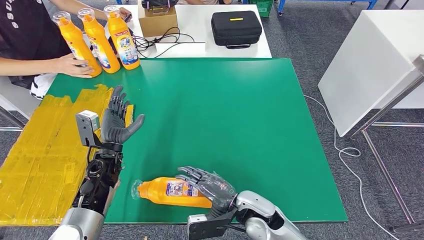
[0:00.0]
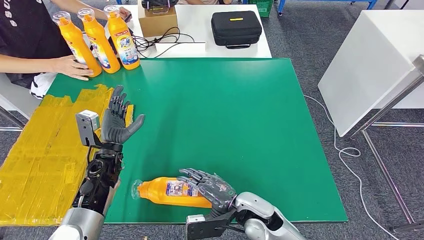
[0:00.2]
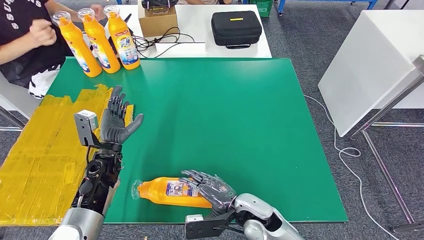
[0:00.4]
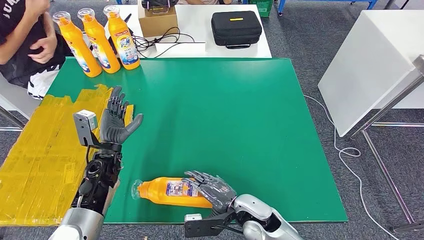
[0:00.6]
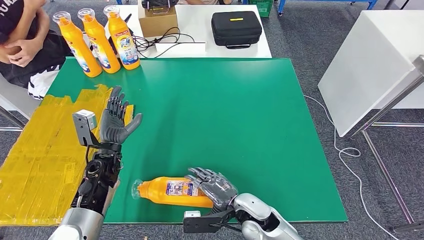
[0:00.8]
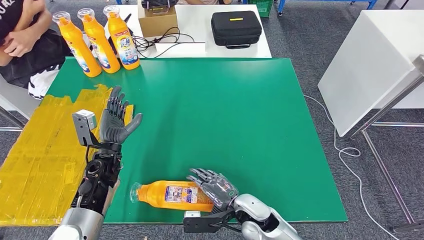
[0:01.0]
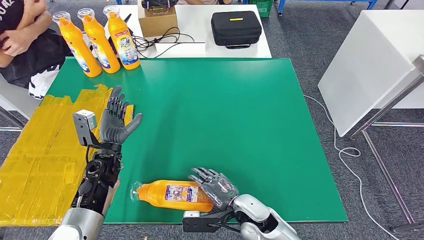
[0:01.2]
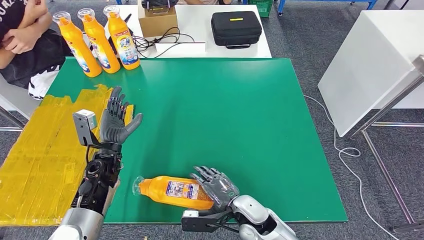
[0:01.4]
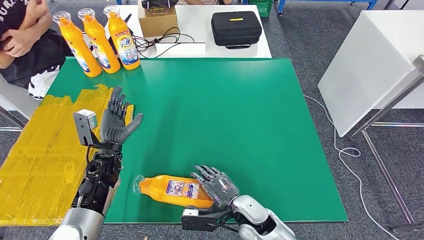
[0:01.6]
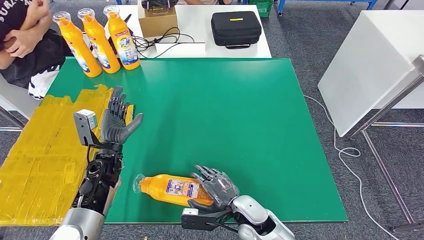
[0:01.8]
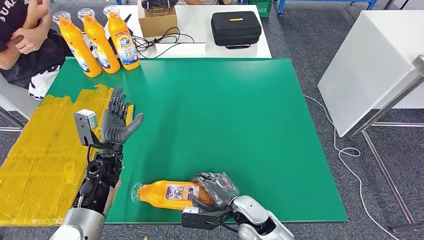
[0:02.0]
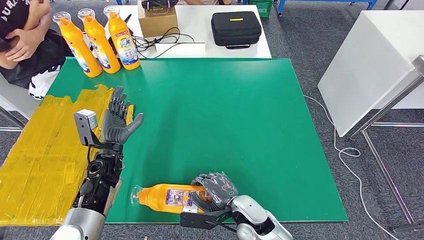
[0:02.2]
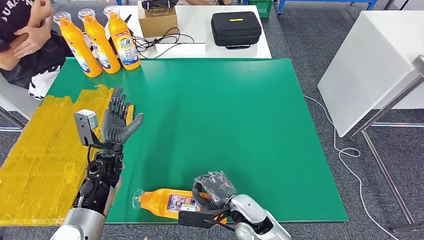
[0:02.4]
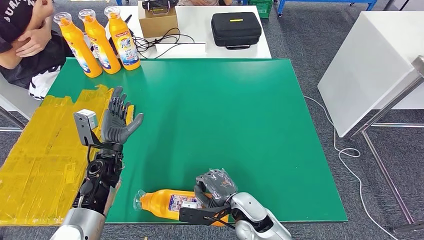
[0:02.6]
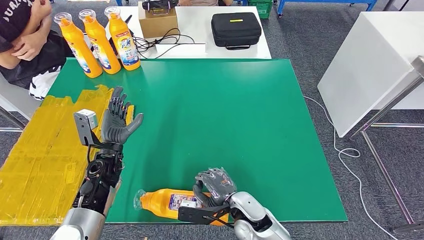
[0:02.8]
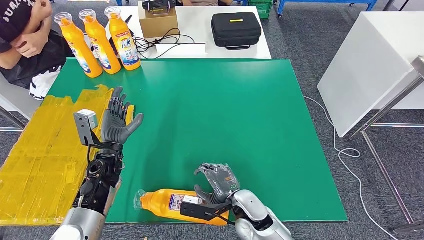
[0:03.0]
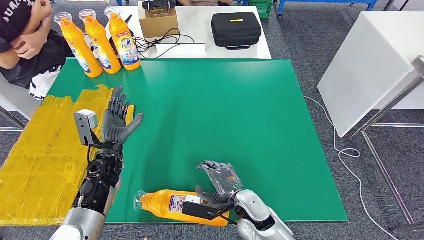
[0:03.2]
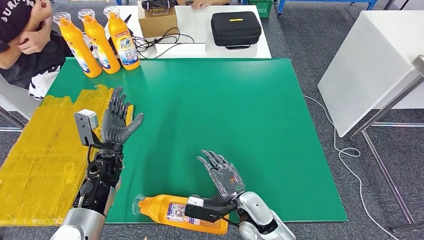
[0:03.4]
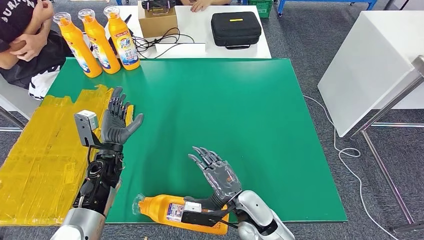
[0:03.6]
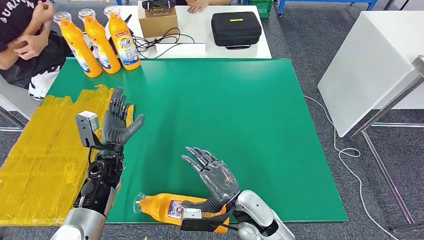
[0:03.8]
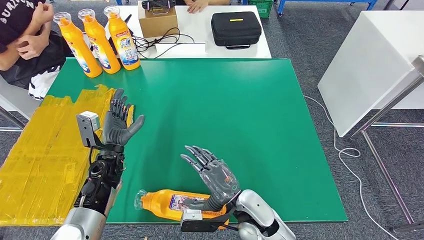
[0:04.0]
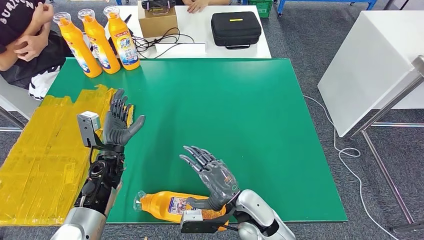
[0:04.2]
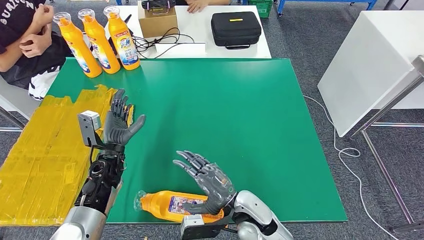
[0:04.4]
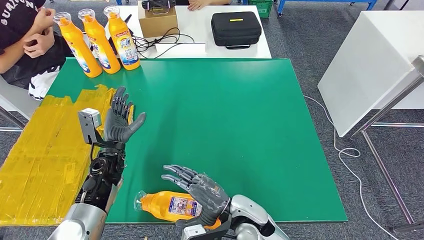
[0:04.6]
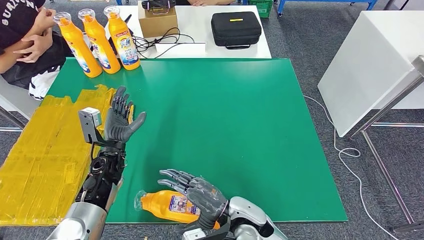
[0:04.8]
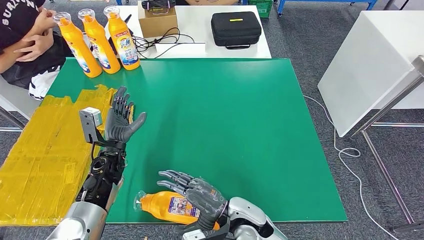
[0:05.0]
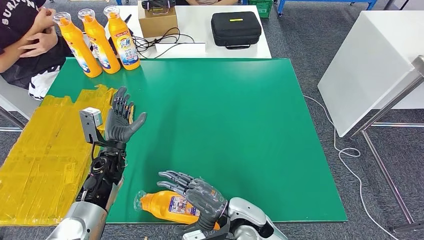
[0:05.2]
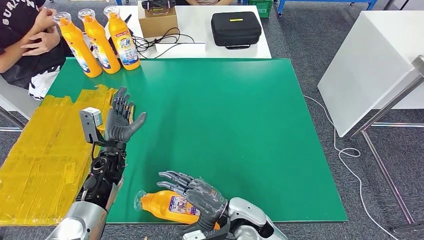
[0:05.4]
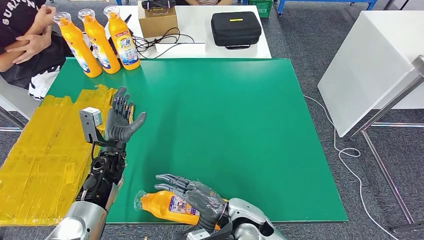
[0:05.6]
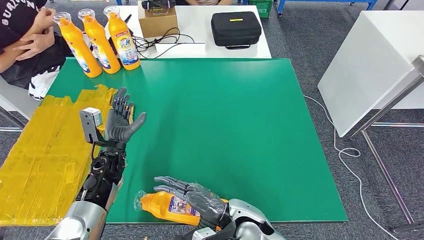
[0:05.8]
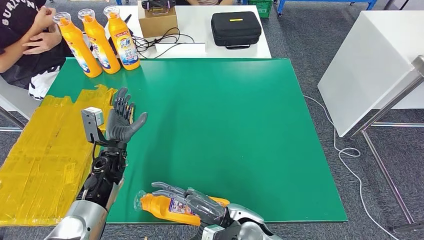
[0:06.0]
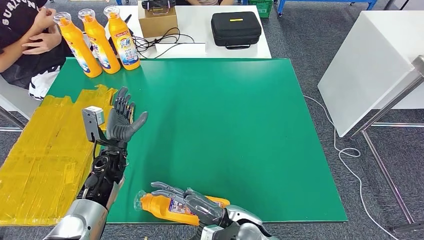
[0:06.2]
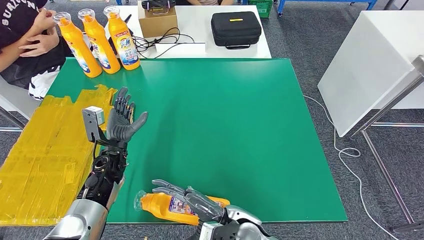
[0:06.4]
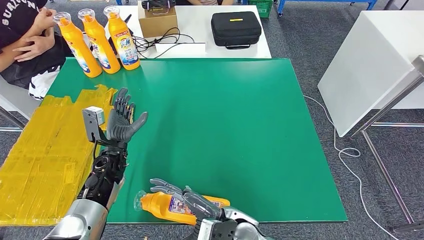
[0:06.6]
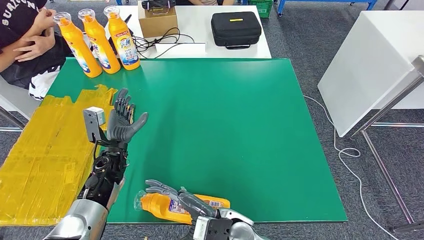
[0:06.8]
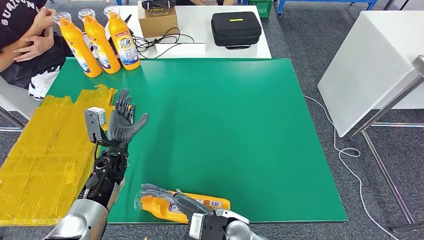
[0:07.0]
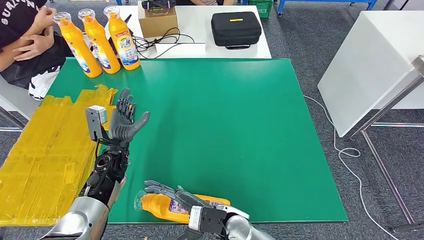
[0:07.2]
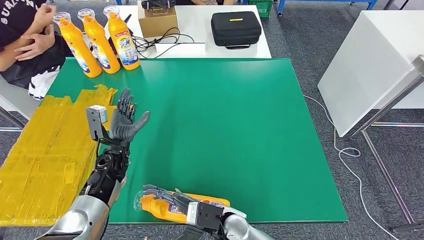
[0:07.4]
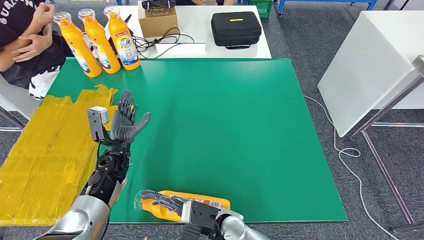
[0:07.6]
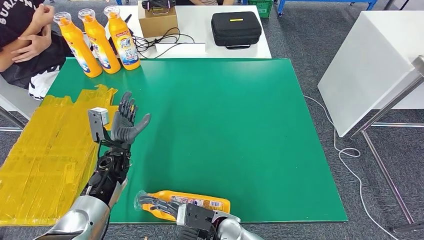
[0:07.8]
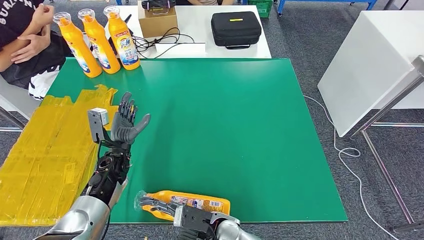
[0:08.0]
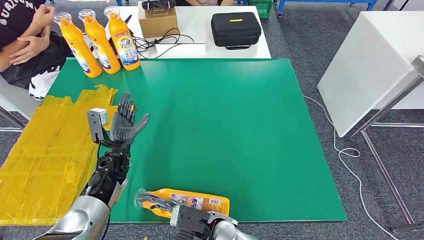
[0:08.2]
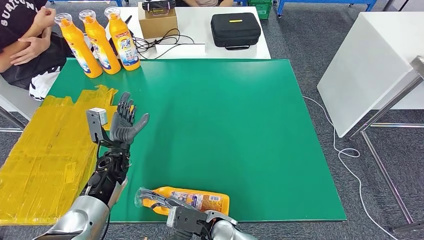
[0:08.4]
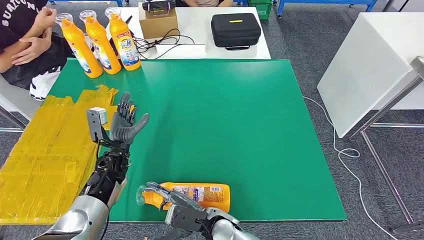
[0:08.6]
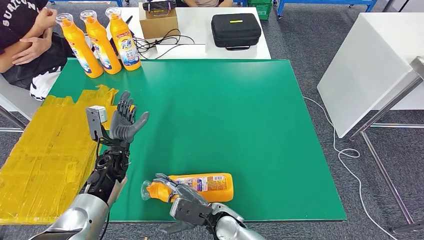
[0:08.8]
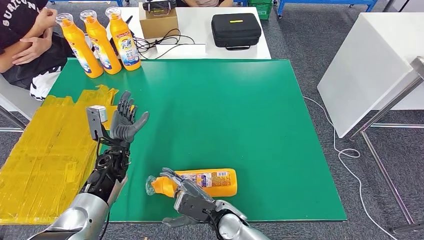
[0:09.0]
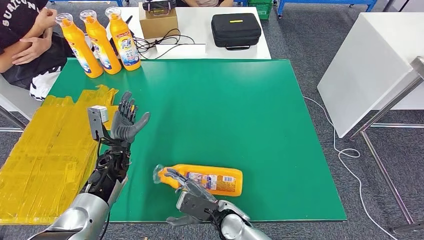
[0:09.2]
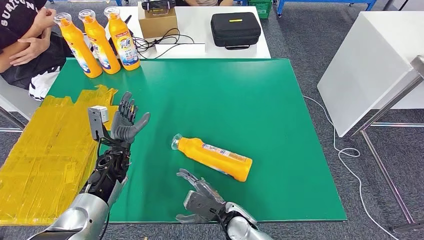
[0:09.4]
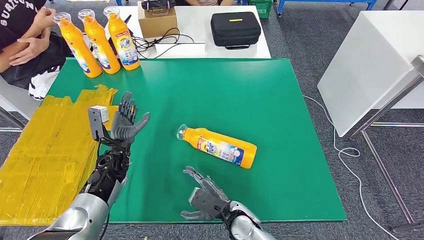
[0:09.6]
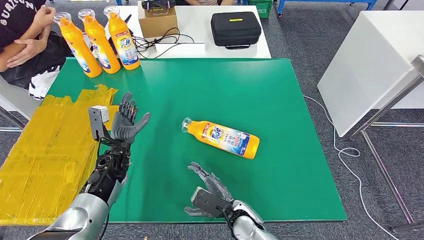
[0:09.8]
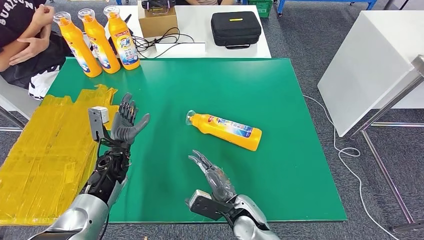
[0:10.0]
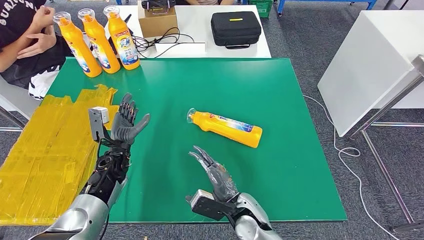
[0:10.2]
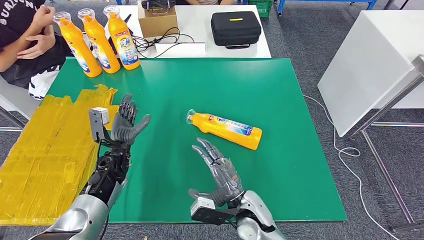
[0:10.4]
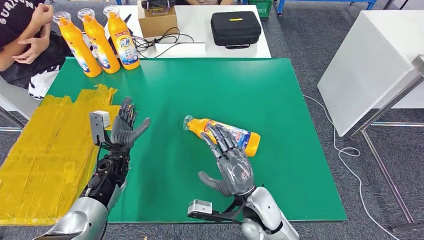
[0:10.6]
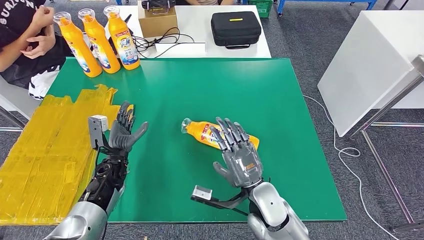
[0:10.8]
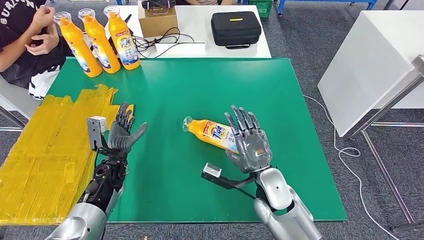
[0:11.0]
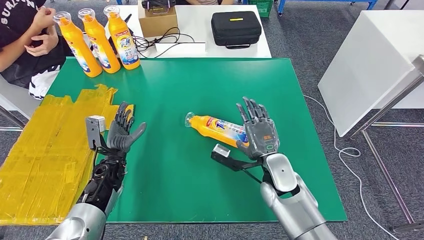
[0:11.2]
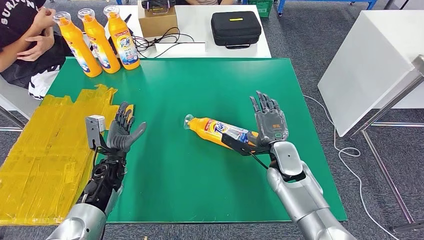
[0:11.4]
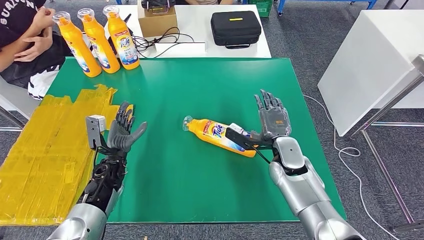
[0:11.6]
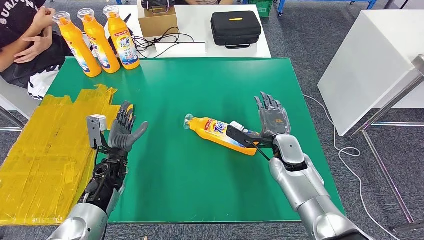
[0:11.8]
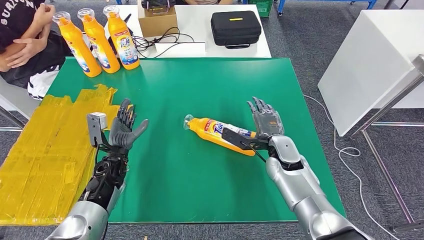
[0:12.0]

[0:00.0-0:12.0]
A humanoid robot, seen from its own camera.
0:01.6 to 0:03.0: The hands move only a little.
0:06.0 to 0:07.6: The right hand changes place by approximately 5 cm.
0:09.0 to 0:10.4: The right hand goes approximately 5 cm to the right.
0:10.4 to 0:12.0: The right hand shifts approximately 15 cm forward and to the right.

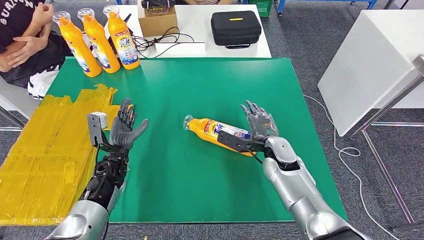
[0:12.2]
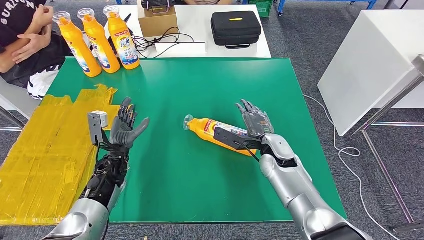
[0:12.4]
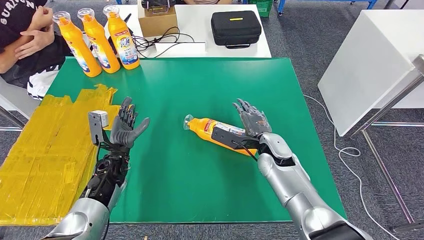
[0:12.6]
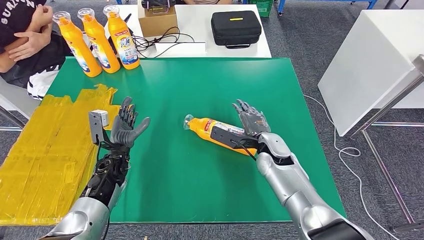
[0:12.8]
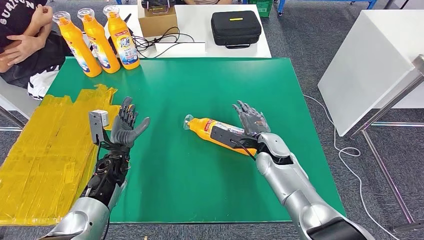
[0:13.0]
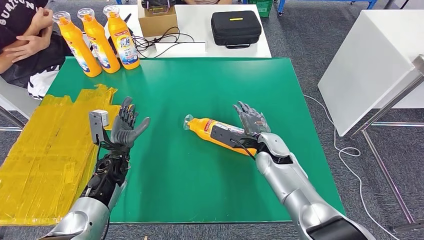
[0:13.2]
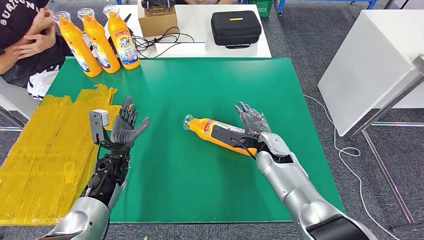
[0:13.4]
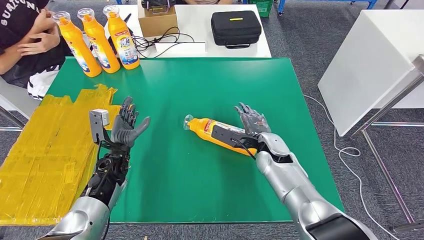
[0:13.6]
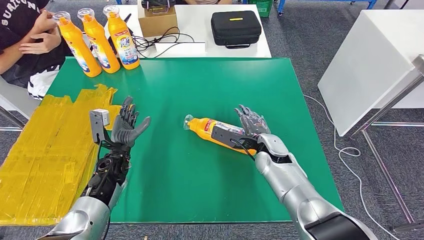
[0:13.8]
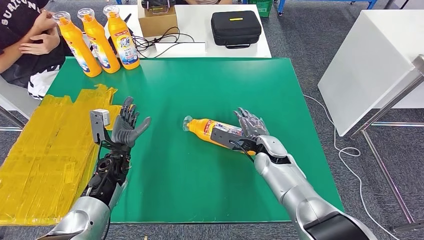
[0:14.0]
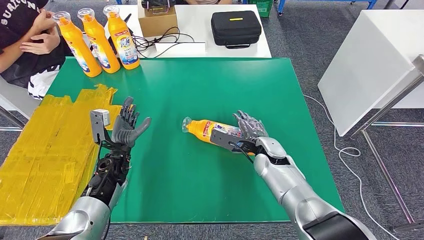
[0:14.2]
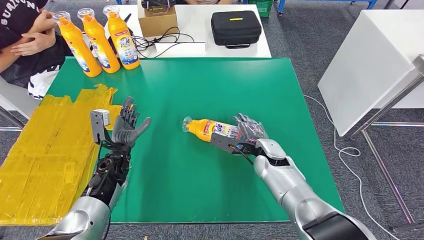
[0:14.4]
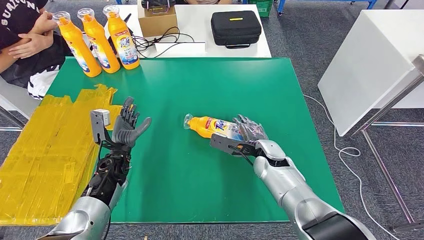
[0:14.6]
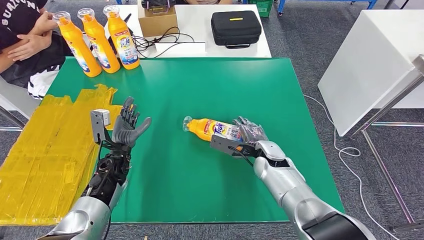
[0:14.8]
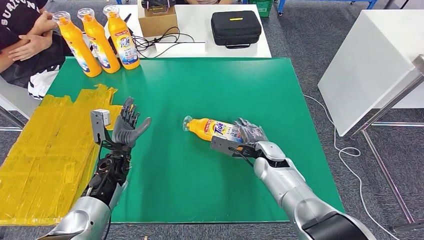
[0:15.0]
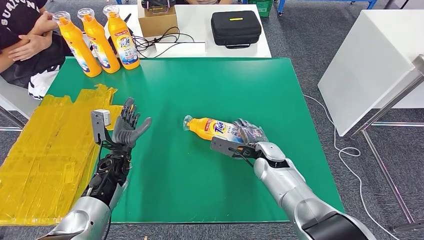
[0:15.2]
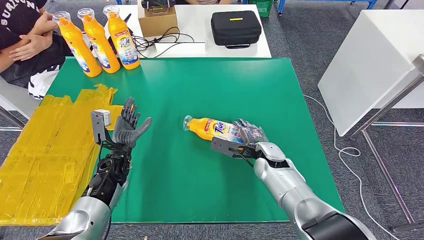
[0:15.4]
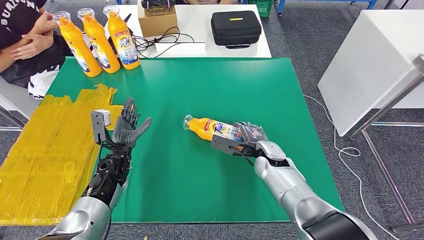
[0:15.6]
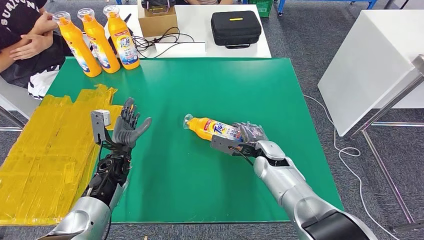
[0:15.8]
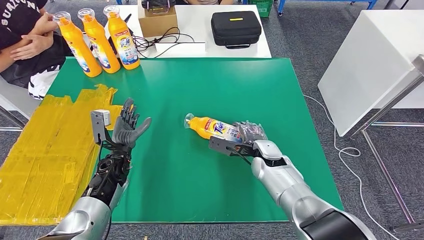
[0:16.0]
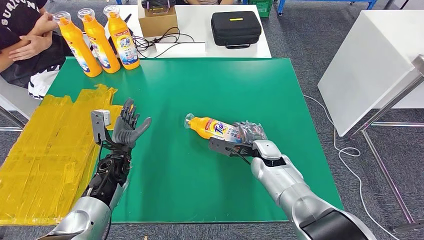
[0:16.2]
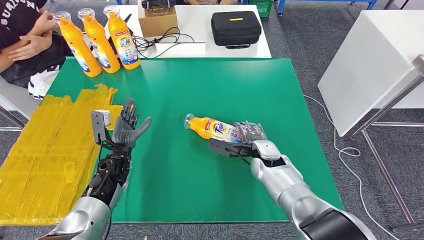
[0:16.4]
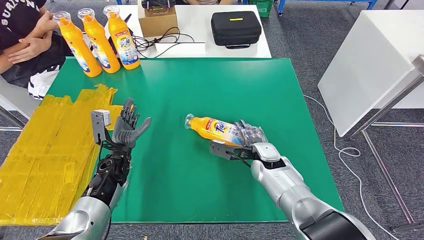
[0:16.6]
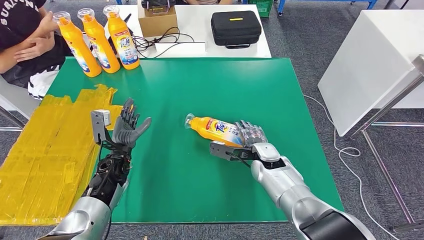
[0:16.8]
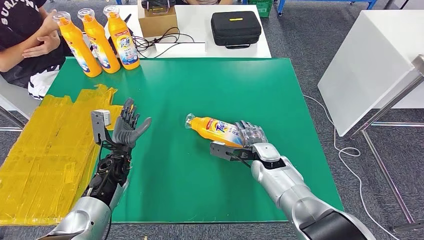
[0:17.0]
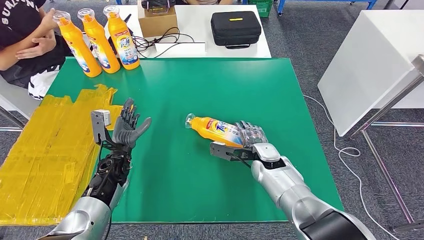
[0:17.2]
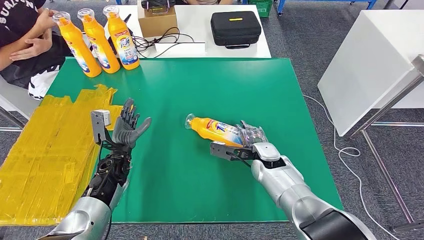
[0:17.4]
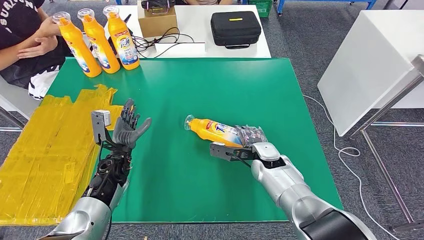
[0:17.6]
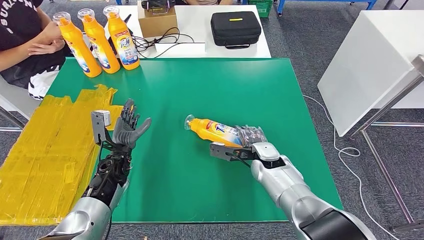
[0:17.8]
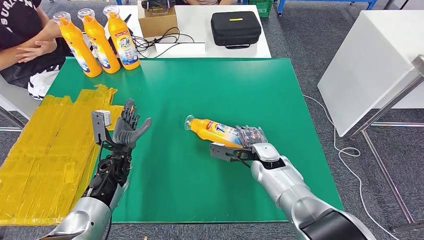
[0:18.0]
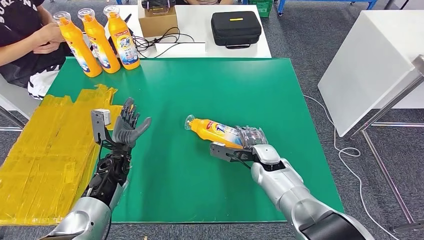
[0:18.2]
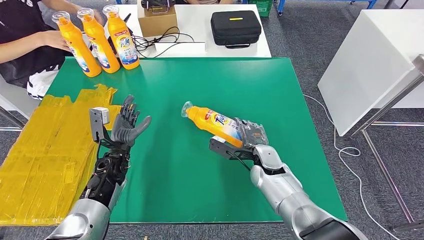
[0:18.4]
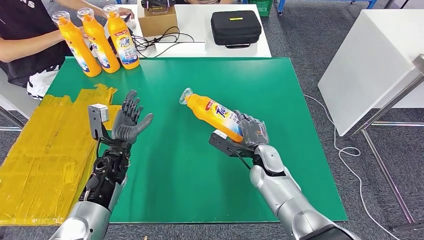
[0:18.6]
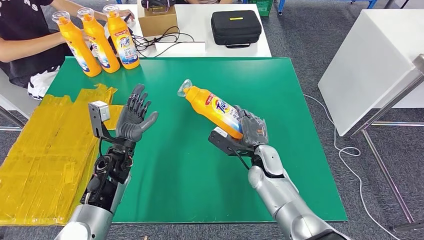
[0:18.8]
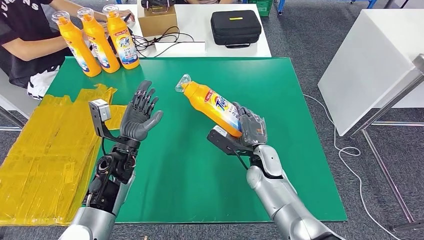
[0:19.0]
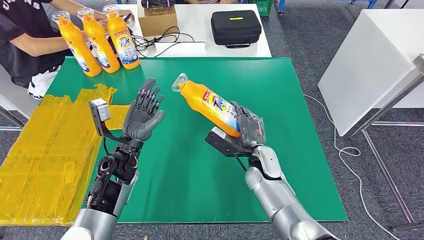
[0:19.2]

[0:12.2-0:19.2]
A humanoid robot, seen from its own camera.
0:12.2 to 0:16.4: The hands stay close to where they were, moving slightly.
0:16.4 to 0:17.8: The hands move only a little.
0:17.8 to 0:19.2: The left hand shifts roughly 5 cm upward.
